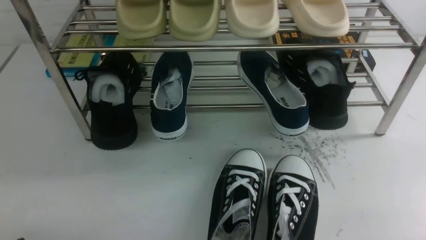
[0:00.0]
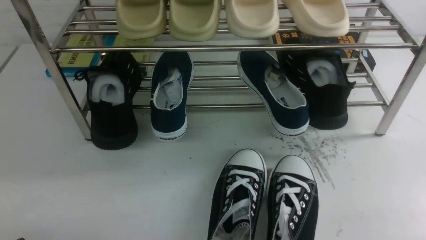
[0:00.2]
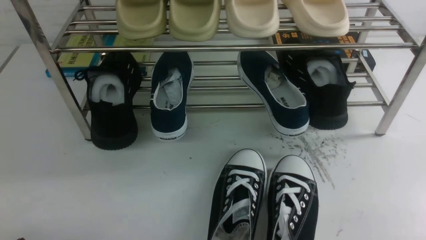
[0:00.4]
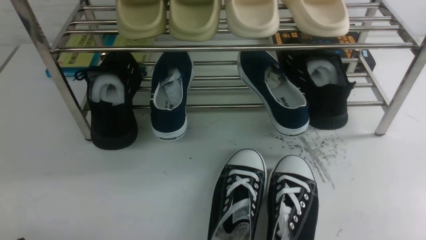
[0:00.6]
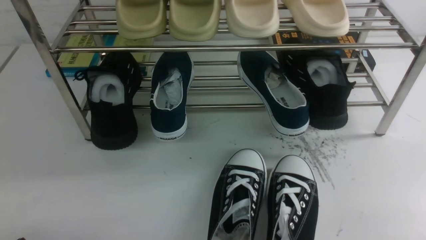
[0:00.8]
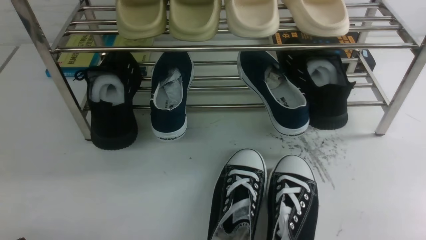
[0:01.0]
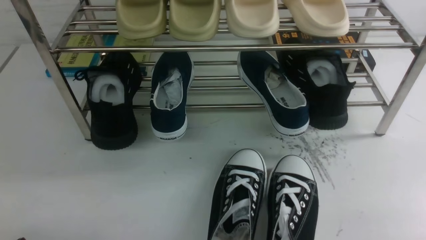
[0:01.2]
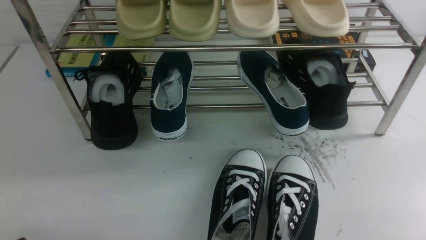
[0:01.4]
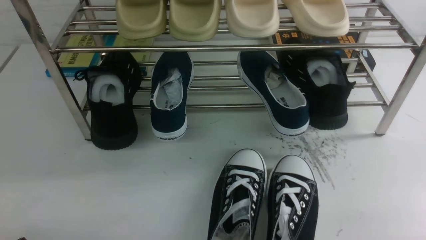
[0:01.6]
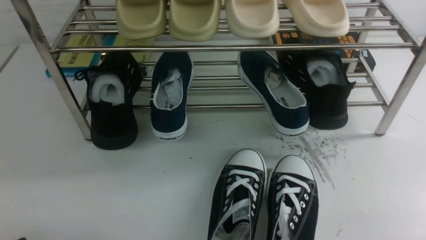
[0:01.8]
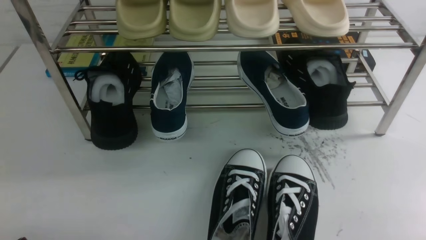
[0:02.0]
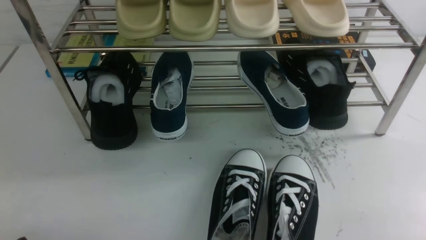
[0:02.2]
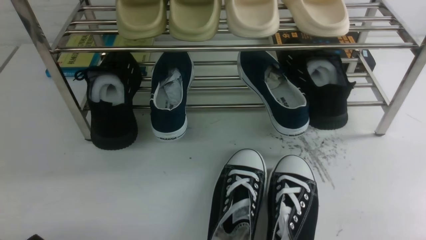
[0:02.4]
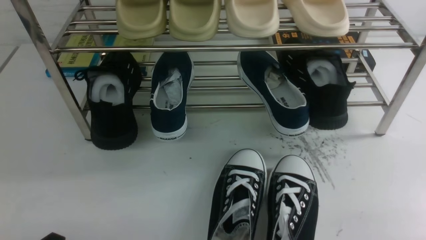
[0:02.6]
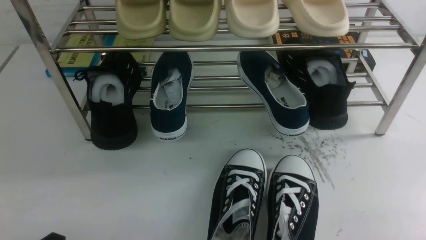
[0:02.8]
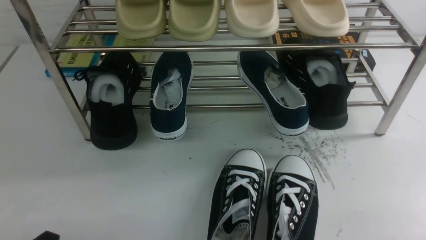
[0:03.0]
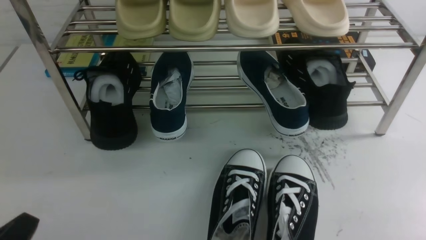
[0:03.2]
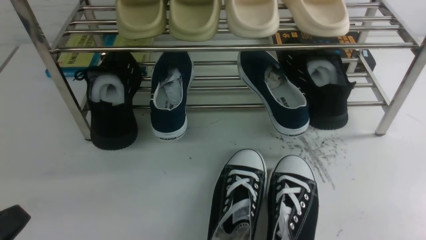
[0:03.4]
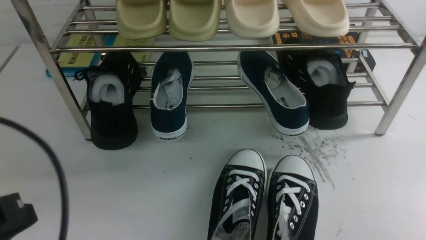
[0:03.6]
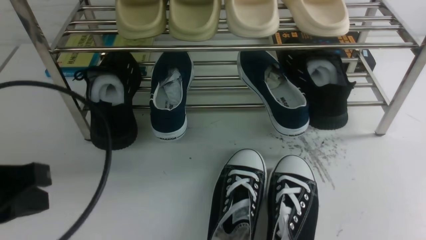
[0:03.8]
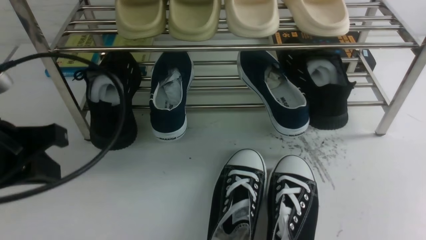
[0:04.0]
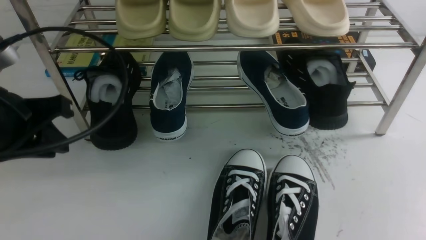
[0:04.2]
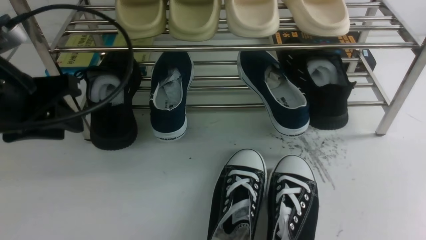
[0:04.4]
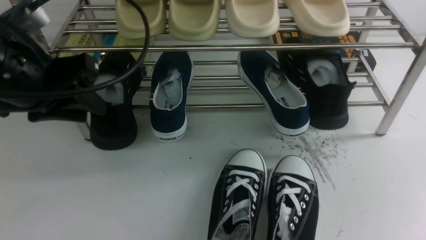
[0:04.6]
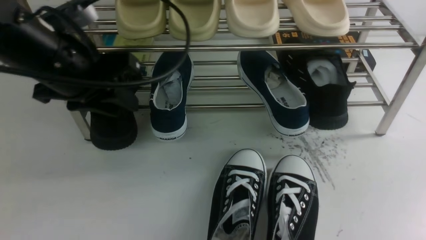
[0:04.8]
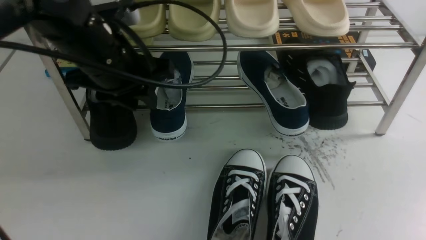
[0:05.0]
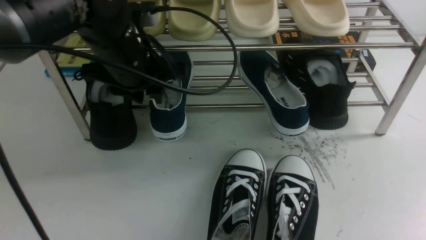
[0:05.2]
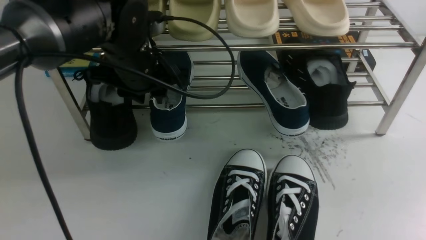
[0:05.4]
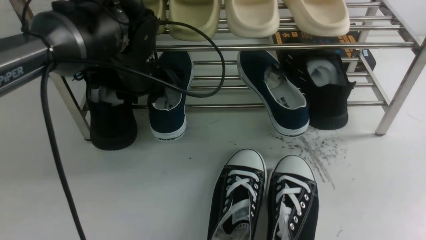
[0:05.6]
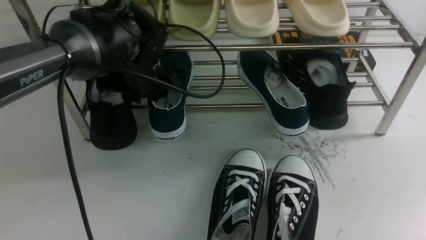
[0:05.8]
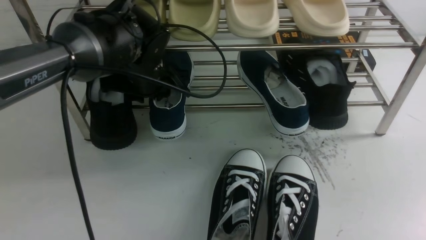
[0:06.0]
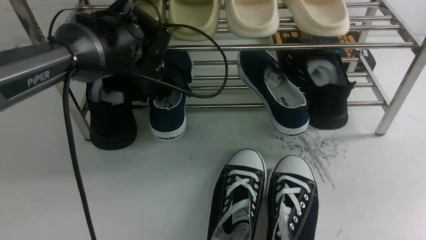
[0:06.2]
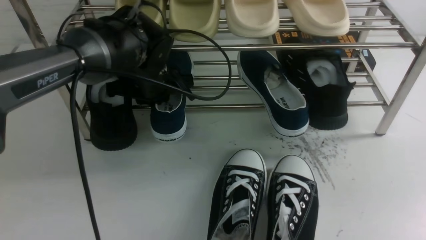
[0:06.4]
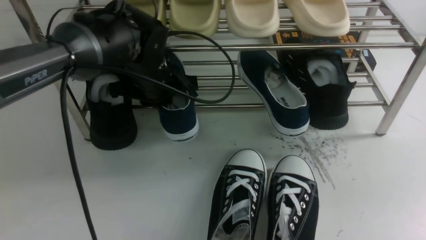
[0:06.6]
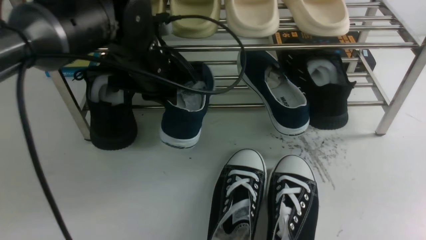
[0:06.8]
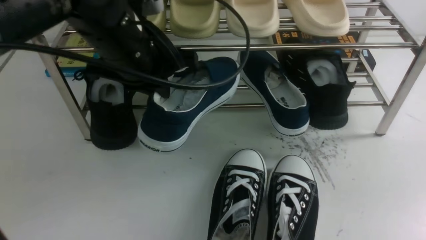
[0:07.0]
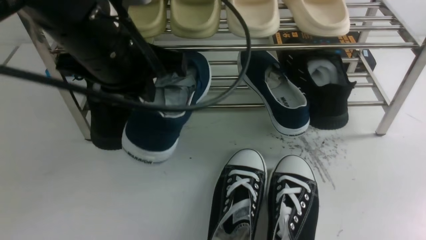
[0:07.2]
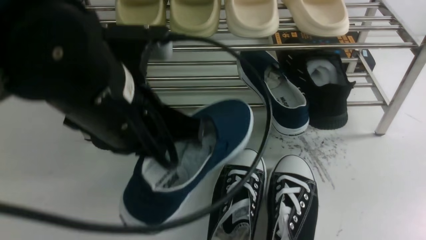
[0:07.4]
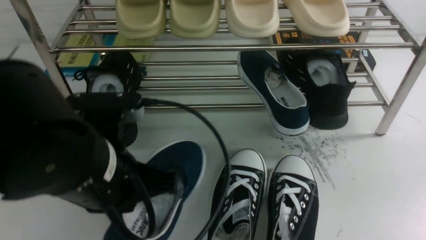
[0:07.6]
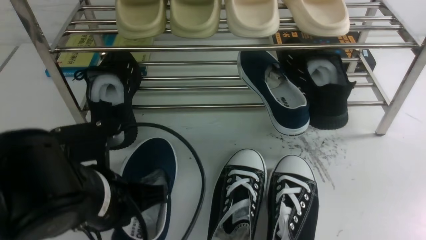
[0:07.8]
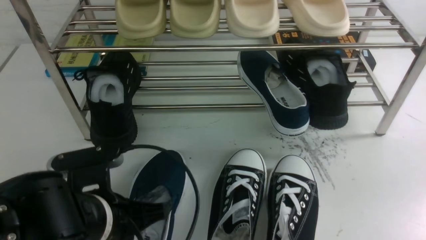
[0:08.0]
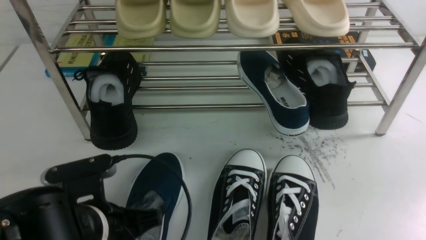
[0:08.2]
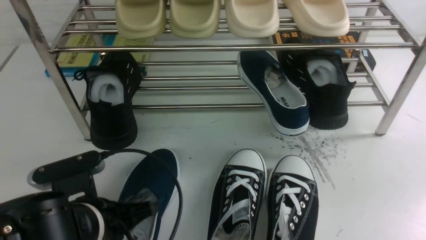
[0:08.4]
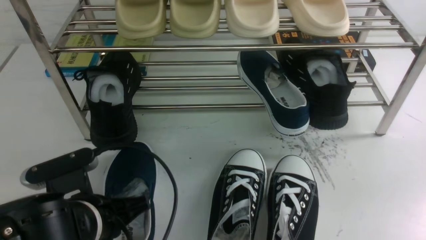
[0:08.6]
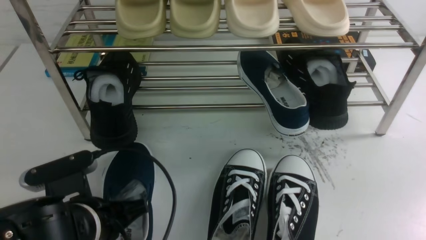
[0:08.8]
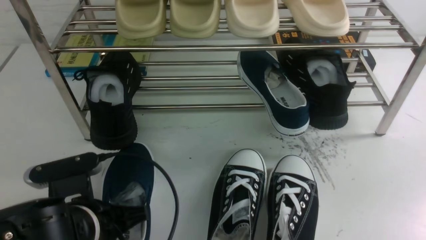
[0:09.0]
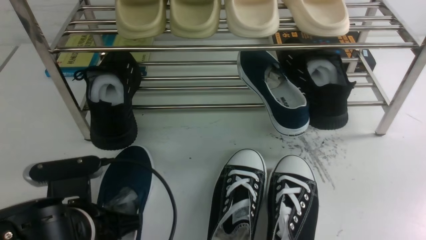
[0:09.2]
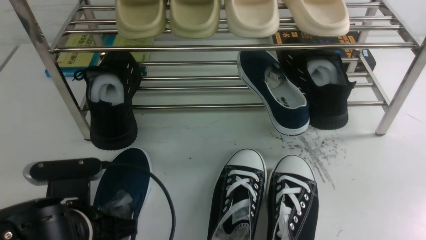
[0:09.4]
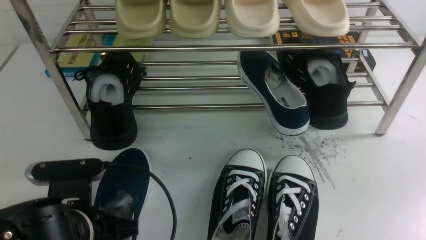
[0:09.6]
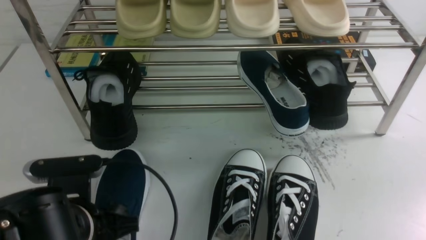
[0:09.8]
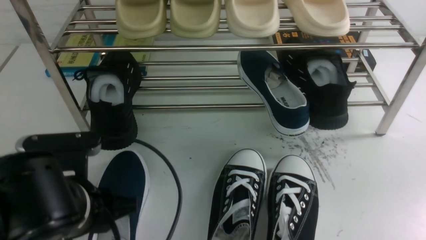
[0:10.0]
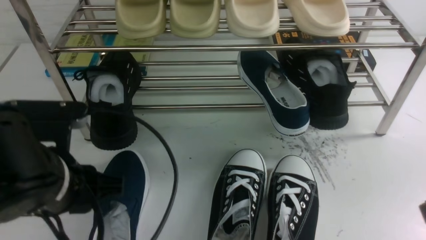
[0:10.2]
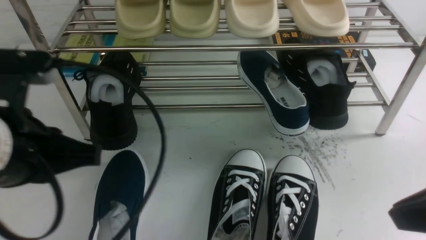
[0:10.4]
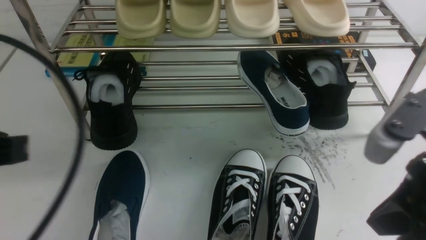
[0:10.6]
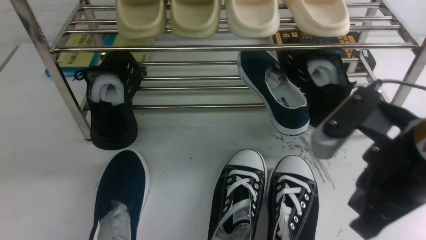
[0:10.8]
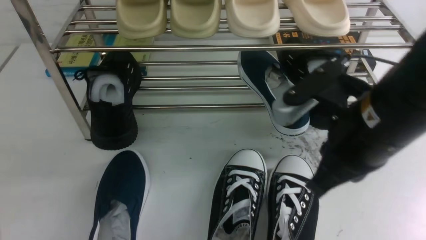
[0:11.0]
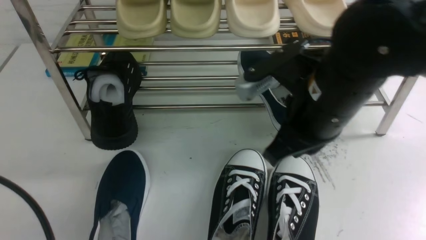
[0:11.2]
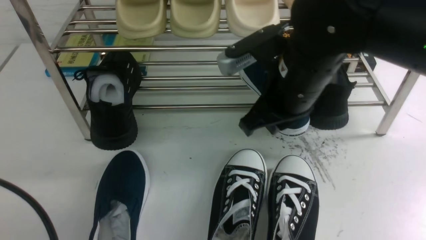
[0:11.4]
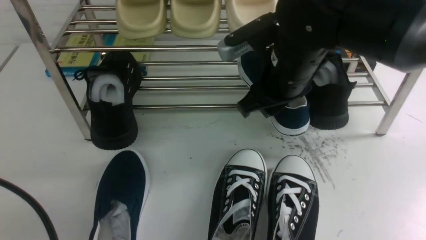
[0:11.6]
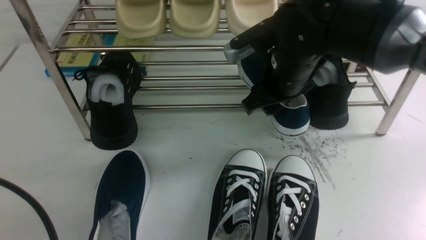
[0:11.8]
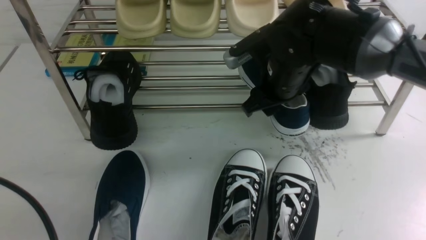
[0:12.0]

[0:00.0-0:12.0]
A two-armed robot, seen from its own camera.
Step, 0:00.0 to 0:06.8: use the left arm to clamp a shoe on the left side of the shoe rack.
Step, 0:07.0 to 0:10.2: Use your left arm to remove the clamped shoe from the shoe rack and put it down.
0:00.0 to 0:01.6: The two grippers keep their place.
0:03.0 to 0:04.4: The left gripper is displaced forward and upward by some 25 cm, and closes, then reopens.
0:04.4 to 0:06.0: The left gripper travels forward, to the right and downward by about 20 cm. Meanwhile the right gripper travels upward by some 15 cm, and closes up.
0:06.0 to 0:07.6: The left gripper moves backward, about 20 cm, and closes.
0:07.6 to 0:09.0: The left gripper heads downward, covering roughly 10 cm.
0:09.0 to 0:10.4: The right gripper moves forward and to the left, some 10 cm, while the left gripper is displaced upward by approximately 15 cm, and opens, then closes once more.
0:10.4 to 0:12.0: The right gripper is displaced forward and to the left by approximately 30 cm, and opens up, while the left gripper travels backward and to the left by some 10 cm, and closes up.

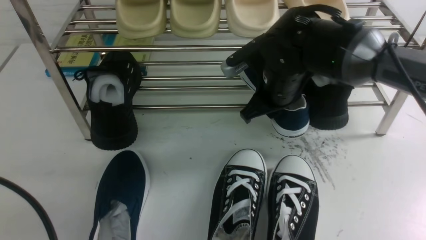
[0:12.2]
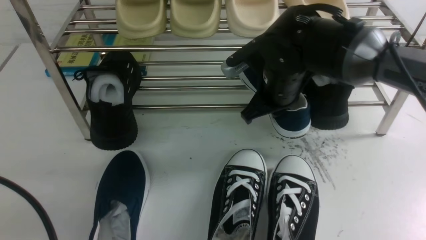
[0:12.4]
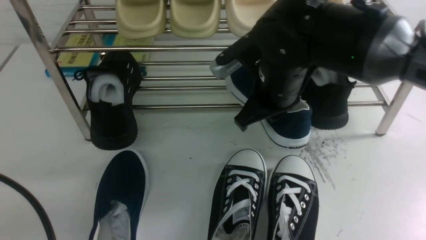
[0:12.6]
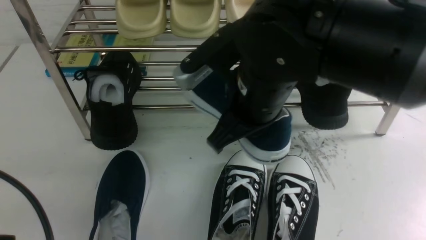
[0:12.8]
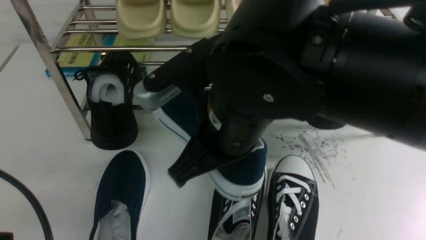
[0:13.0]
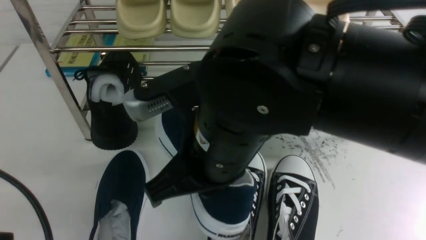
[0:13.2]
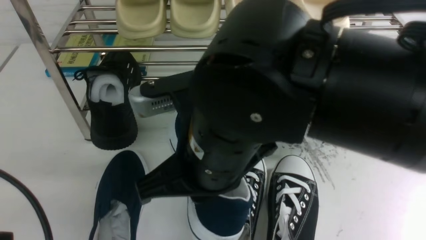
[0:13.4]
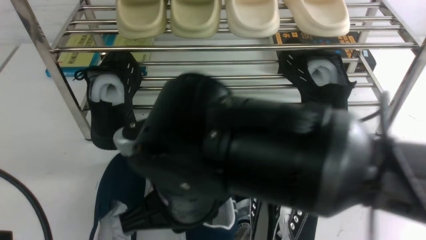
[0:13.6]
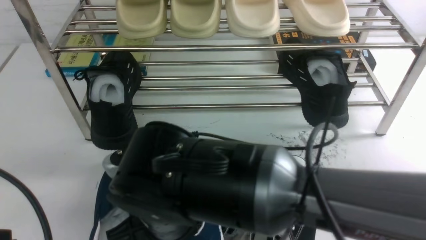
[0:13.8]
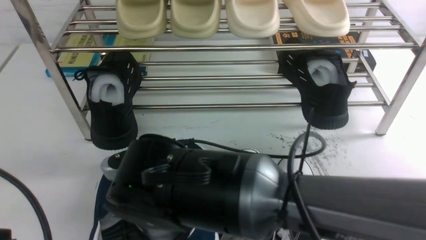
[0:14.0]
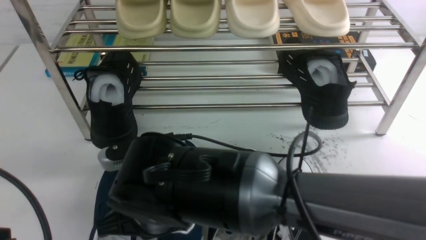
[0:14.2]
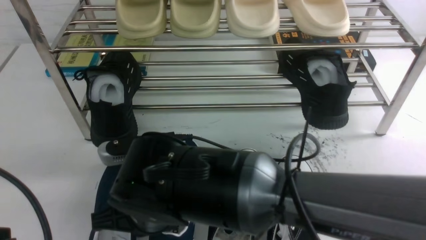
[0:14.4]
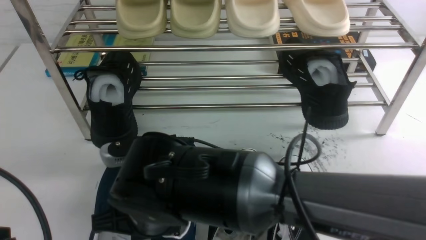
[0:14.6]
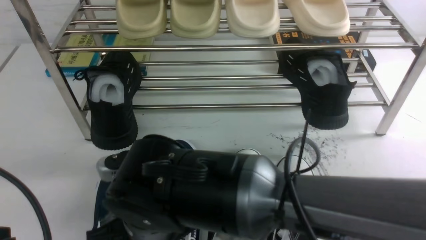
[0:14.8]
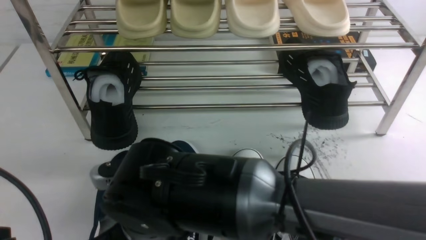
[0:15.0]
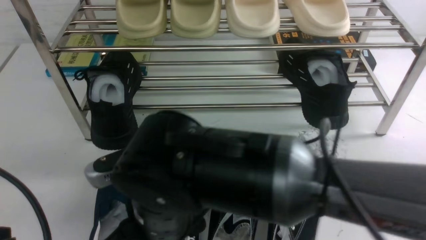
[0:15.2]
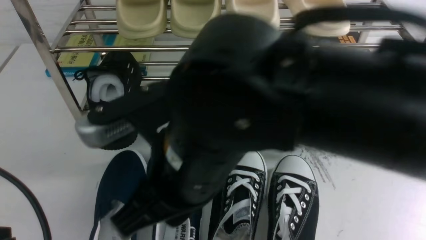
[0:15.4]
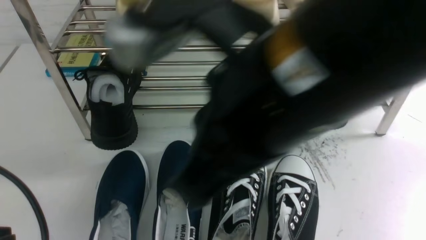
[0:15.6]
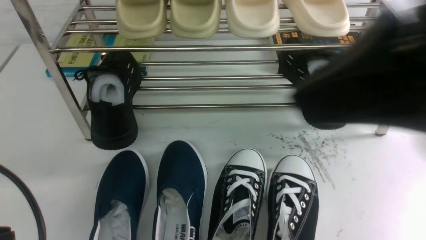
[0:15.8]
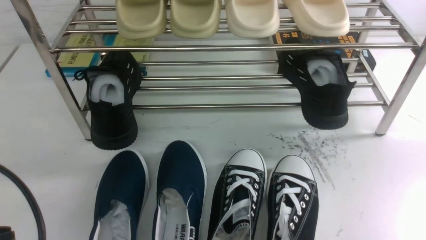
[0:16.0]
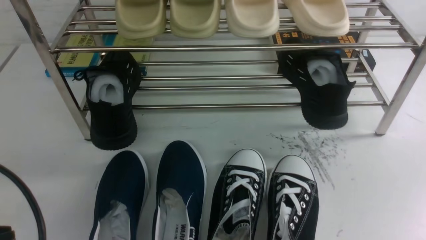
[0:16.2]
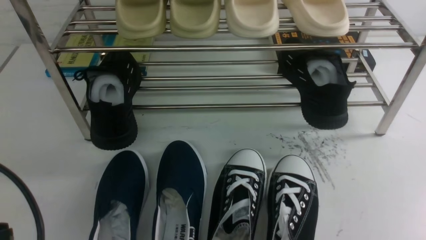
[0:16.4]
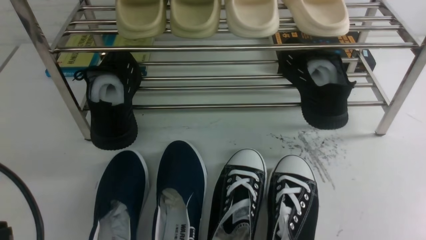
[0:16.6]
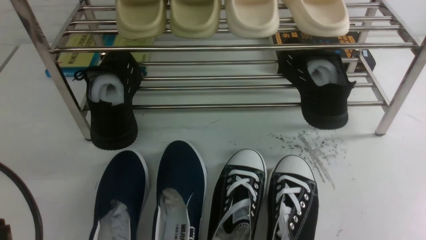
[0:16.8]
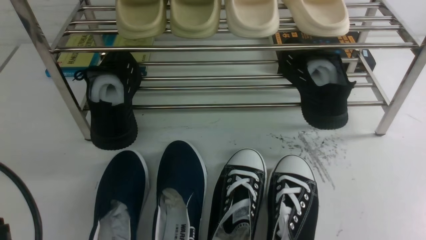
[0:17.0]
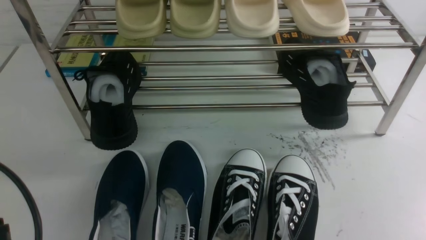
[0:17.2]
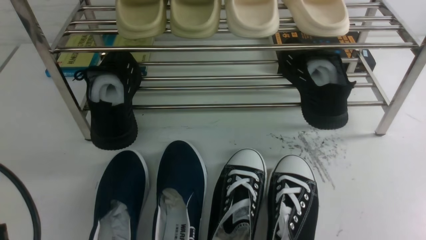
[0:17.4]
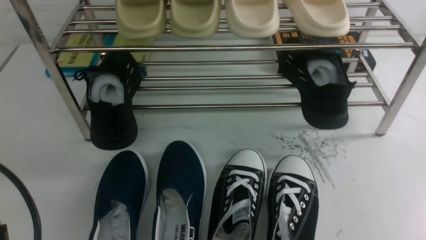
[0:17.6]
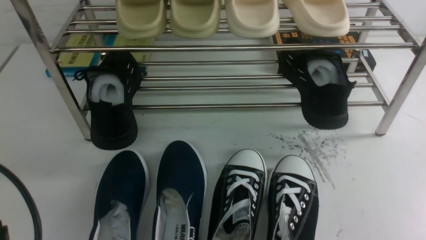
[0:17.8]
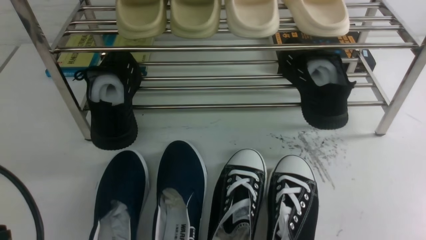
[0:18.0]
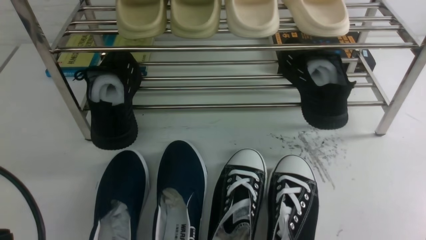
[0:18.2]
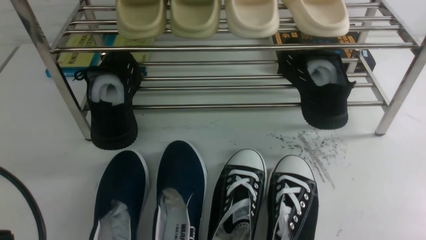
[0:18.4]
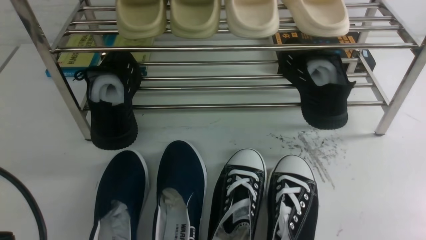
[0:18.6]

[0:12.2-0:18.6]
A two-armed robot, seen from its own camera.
Step, 0:12.8 to 0:15.4: use the right arm to take out the clamped shoe from the shoe rack and put it down.
0:12.2 to 0:13.8: The right gripper moves backward and to the left, about 25 cm, and closes its fingers.
0:13.8 to 0:15.4: The right gripper moves upward, some 10 cm, and opens up.
0:15.4 to 0:17.0: The right gripper shifts approximately 35 cm to the right and backward, and closes up.
